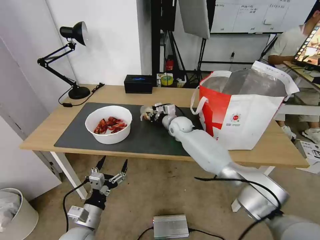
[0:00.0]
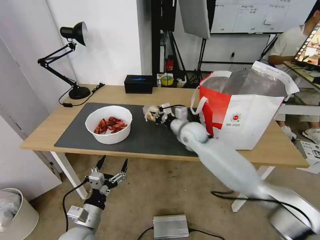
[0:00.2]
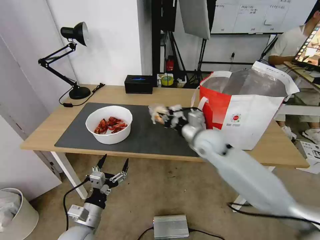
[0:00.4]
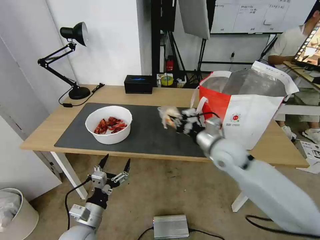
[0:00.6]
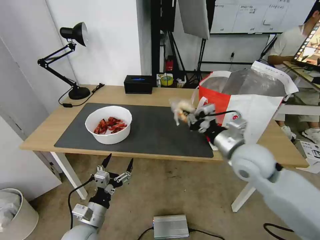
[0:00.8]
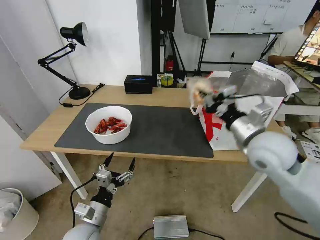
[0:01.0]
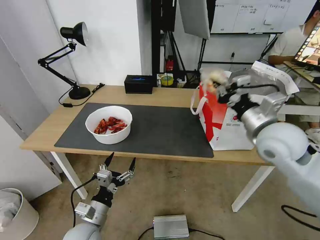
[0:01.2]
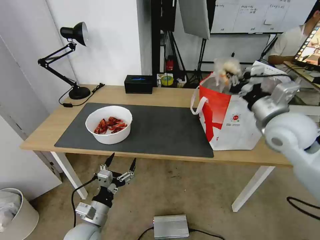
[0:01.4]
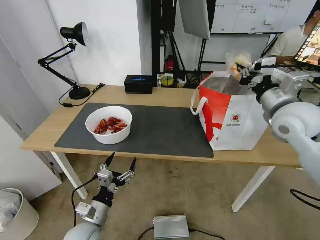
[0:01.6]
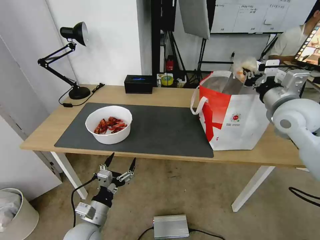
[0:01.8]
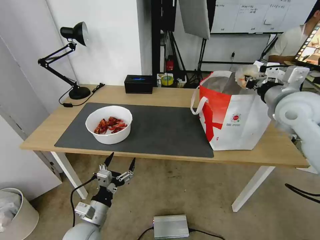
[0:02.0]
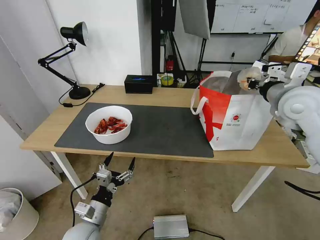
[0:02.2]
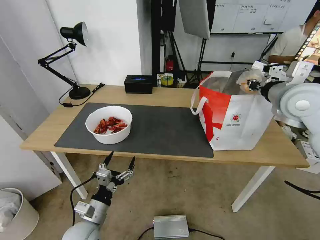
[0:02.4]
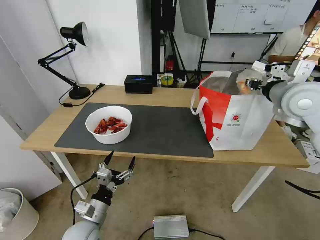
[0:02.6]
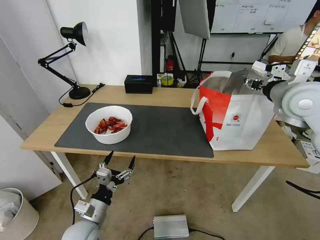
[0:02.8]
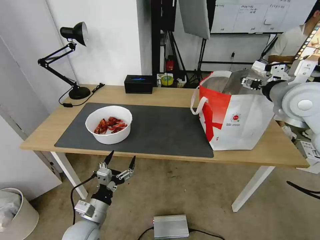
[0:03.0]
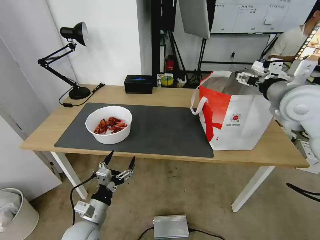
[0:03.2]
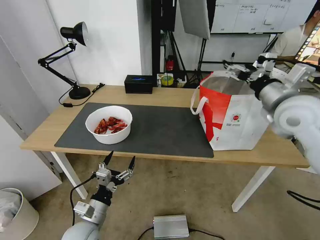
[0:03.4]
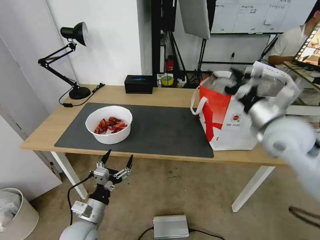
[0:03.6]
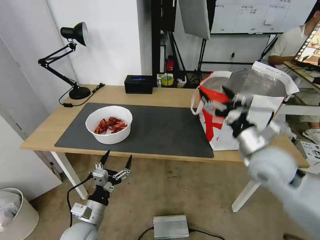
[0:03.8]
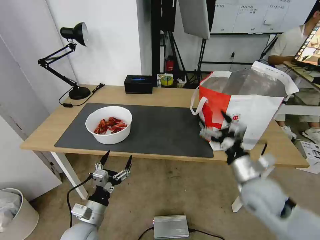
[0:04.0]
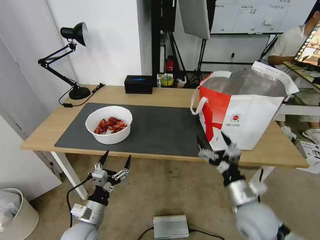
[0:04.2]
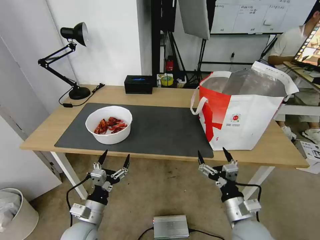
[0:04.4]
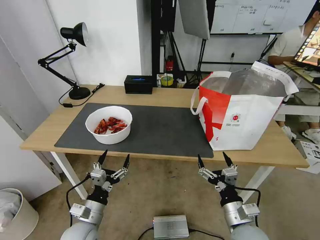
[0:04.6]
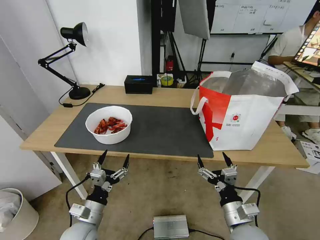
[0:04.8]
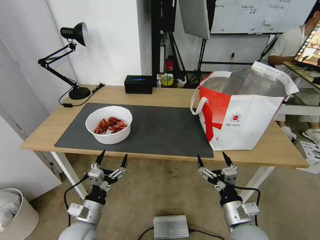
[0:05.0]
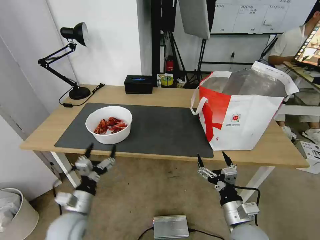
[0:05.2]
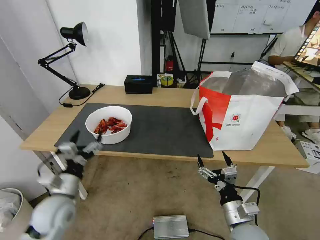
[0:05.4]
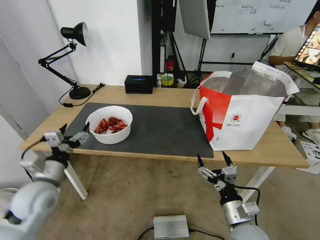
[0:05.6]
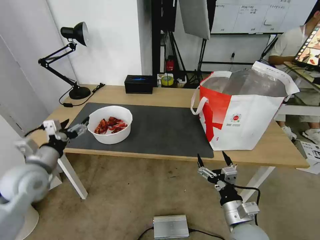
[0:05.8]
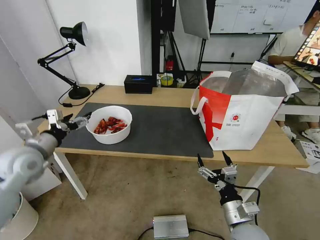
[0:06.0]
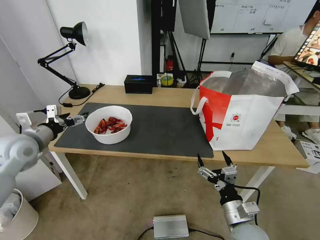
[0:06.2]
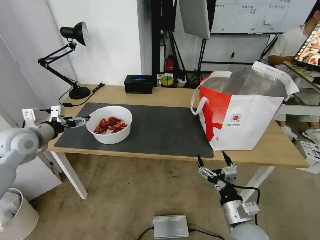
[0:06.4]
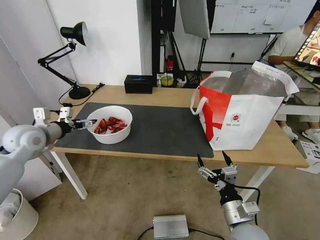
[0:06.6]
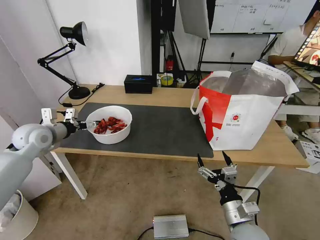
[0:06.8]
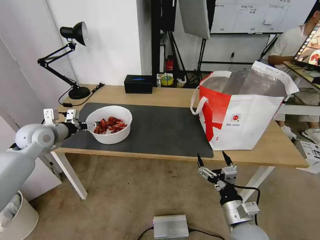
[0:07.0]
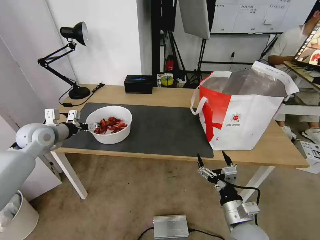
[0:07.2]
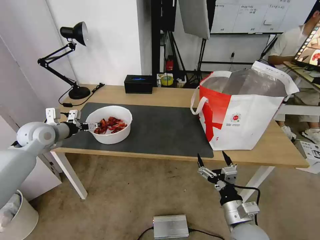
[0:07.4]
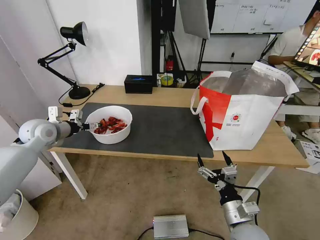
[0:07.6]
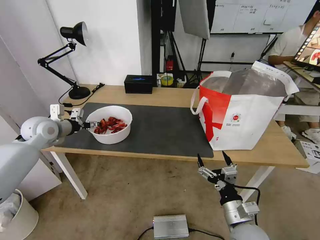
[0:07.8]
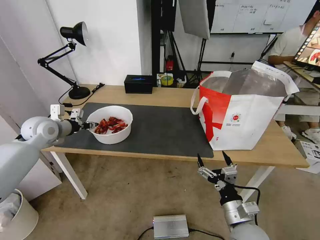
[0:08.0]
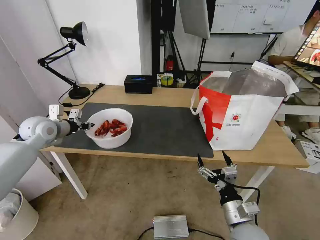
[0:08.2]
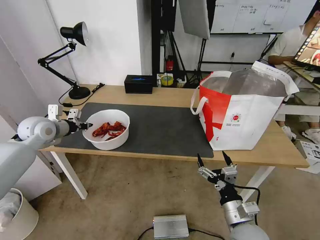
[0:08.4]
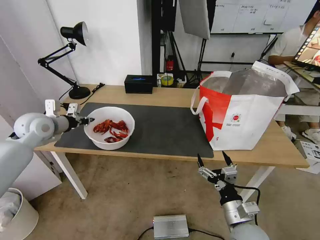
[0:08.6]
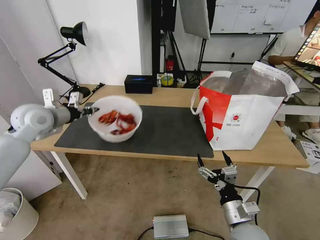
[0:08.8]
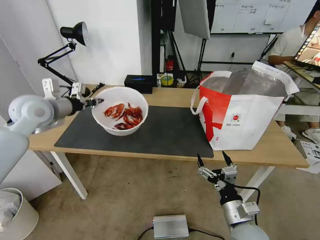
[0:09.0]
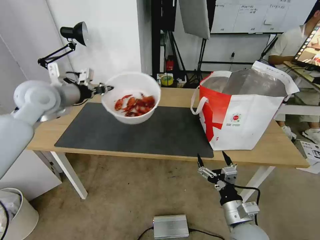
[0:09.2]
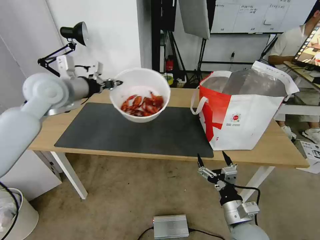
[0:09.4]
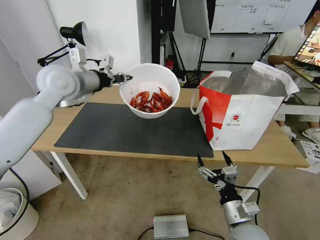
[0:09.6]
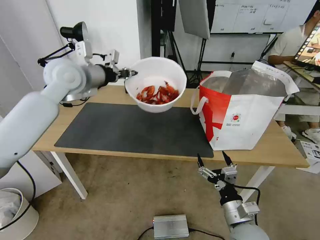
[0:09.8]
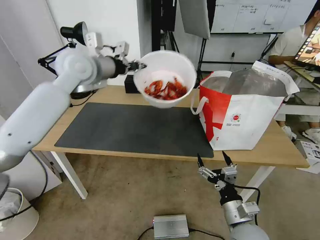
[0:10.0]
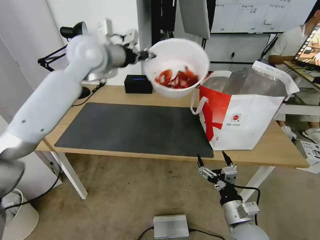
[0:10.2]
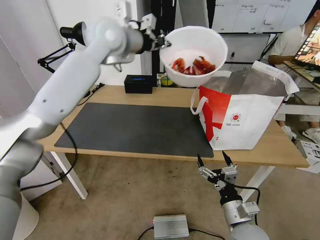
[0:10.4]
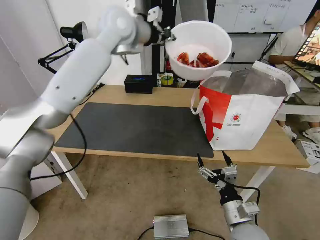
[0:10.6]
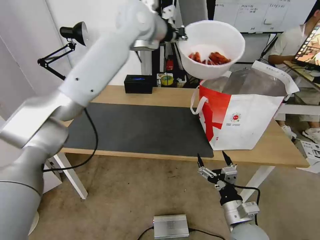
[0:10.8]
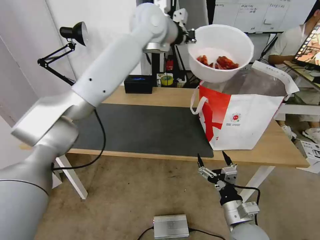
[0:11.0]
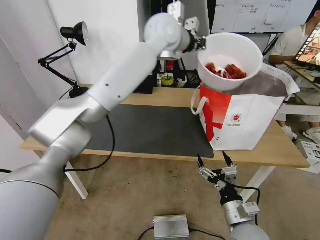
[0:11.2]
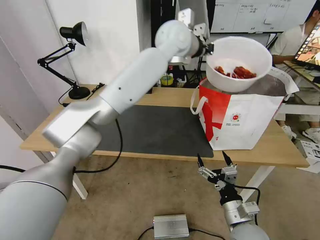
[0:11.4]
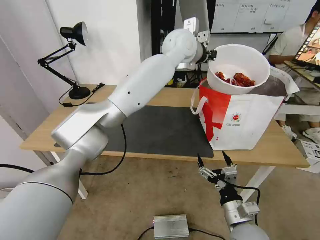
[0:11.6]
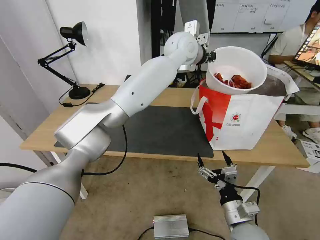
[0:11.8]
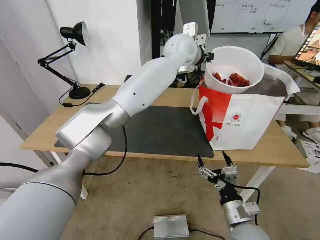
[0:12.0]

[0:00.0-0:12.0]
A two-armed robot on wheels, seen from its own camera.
Task of the whole recording: Pick up the trash from the table and place it into the takeout bag.
0:00.0 to 0:01.6: The right gripper heads to the right, upward and backward, covering approximately 35 cm.
0:01.6 to 0:03.0: The right gripper changes place by approximately 5 cm, and opens up.
0:03.0 to 0:04.4: The right gripper goes roughly 40 cm downward and backward.
0:04.4 to 0:06.0: The left gripper is displaced upward, to the left and forward by about 30 cm.
0:06.0 to 0:07.6: The left gripper travels forward by about 10 cm.
0:07.6 to 0:09.0: The left gripper moves upward, approximately 10 cm, and closes its fingers.
0:09.0 to 0:10.4: The left gripper goes about 30 cm to the right, upward and forward.
0:10.4 to 0:12.0: The left gripper heads to the right, covering some 20 cm.

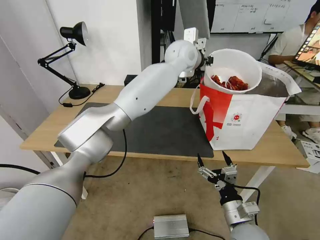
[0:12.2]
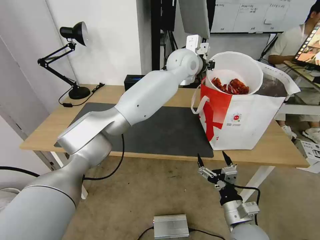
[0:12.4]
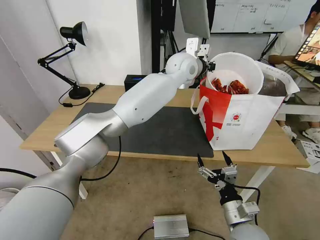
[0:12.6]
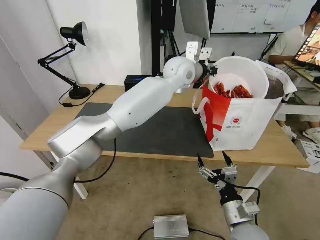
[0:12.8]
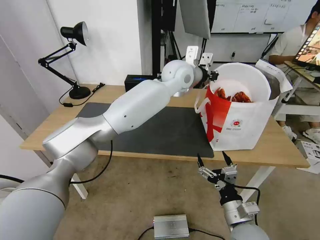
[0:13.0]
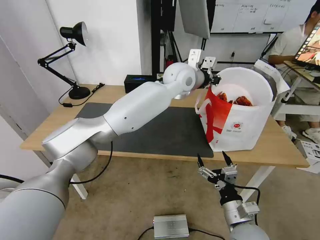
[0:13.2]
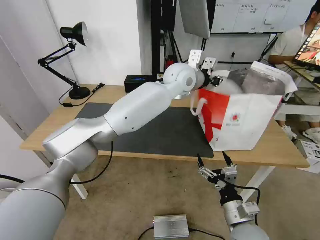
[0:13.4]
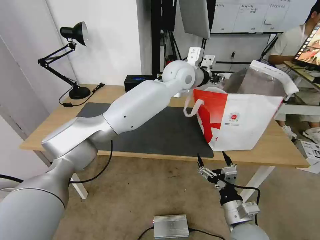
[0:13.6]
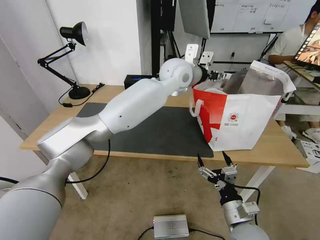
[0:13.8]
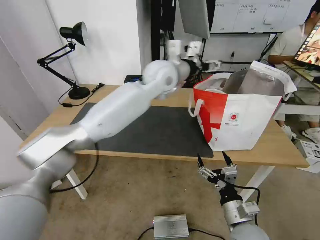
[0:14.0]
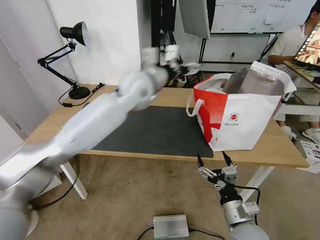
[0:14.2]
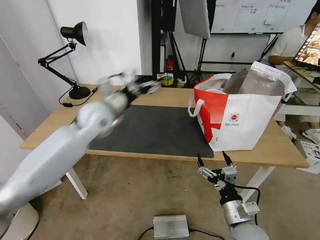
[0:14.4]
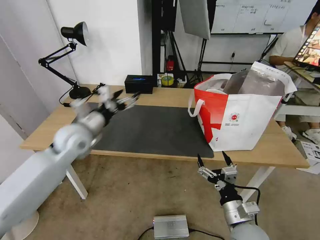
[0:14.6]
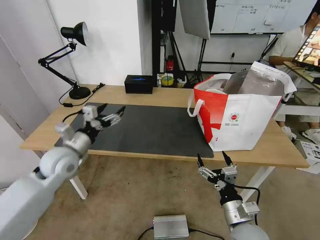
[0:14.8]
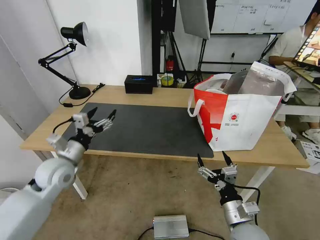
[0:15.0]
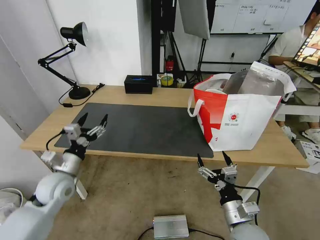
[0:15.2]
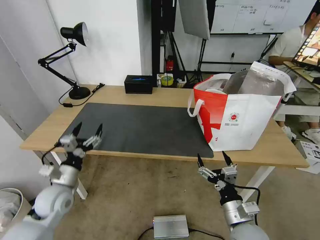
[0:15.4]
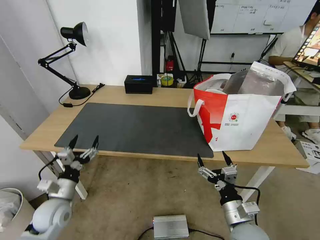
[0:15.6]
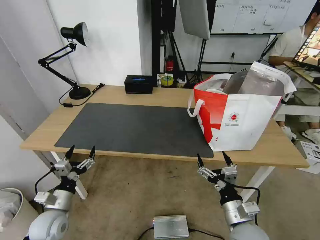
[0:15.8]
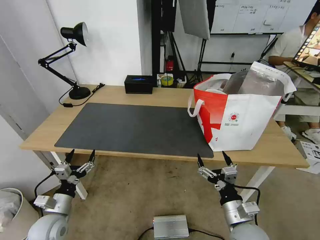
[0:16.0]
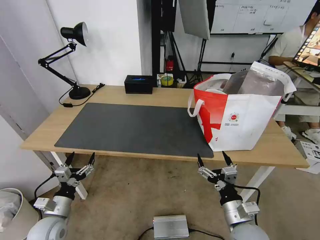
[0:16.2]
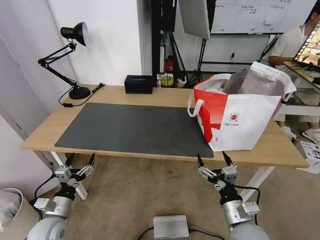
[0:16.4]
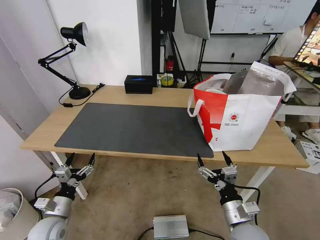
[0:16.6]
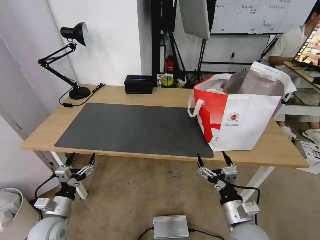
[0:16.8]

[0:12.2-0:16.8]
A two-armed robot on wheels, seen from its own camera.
Task of the whole recording: Pick up the trash from the table and place it into the takeout bag.
0:12.2 to 0:13.8: The left gripper ends up about 5 cm from where it was, and opens.
0:13.8 to 0:15.2: The left gripper goes some 50 cm to the left, downward and backward.
0:15.2 to 0:16.8: The left gripper travels downward and backward by roughly 15 cm.

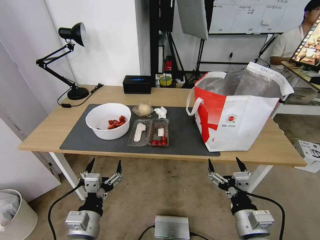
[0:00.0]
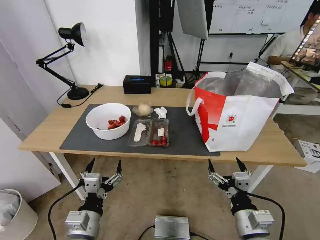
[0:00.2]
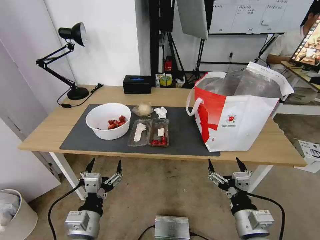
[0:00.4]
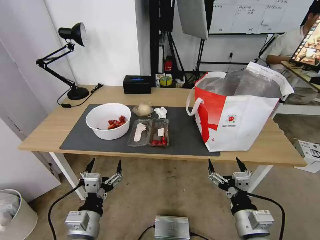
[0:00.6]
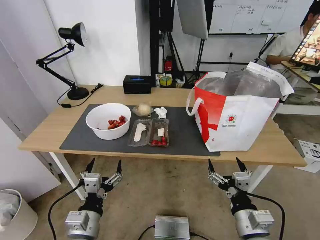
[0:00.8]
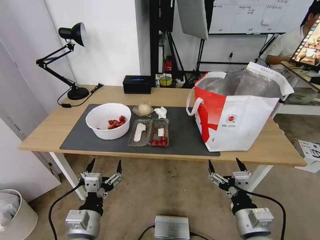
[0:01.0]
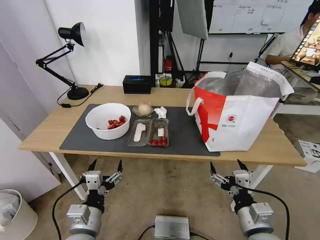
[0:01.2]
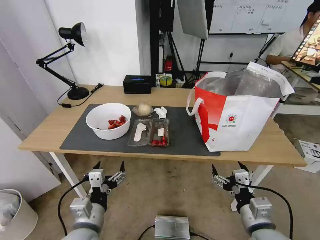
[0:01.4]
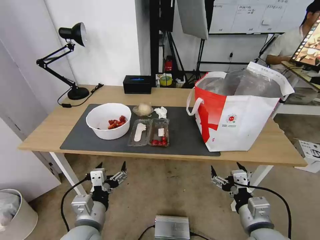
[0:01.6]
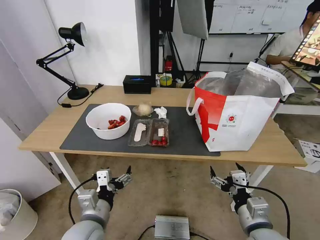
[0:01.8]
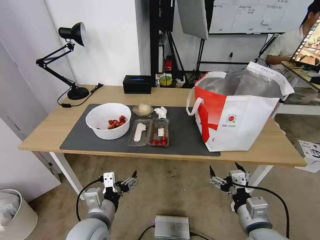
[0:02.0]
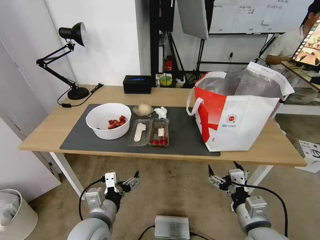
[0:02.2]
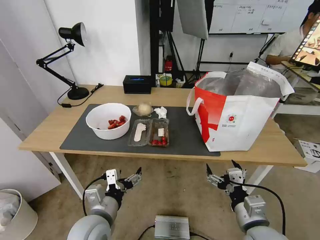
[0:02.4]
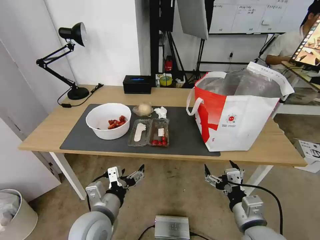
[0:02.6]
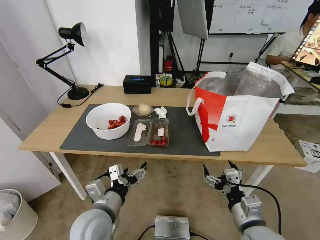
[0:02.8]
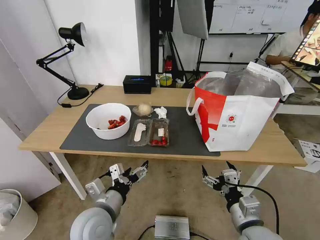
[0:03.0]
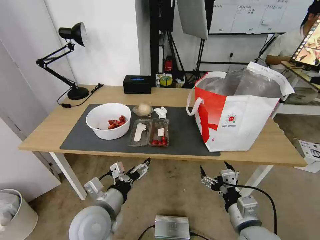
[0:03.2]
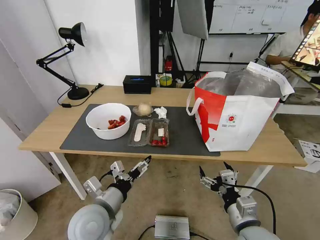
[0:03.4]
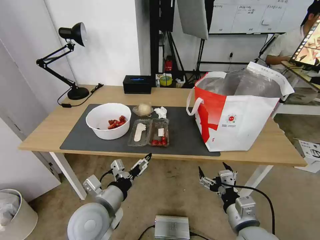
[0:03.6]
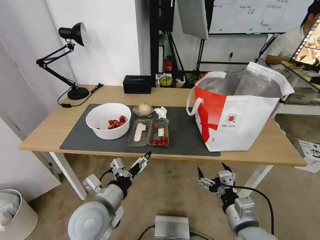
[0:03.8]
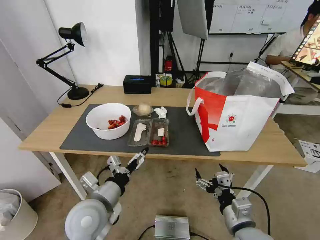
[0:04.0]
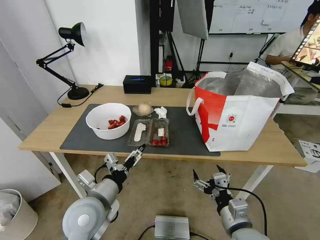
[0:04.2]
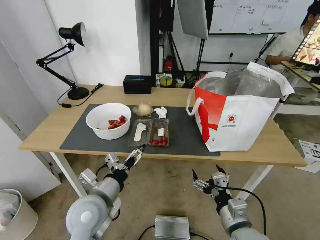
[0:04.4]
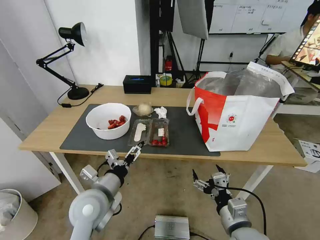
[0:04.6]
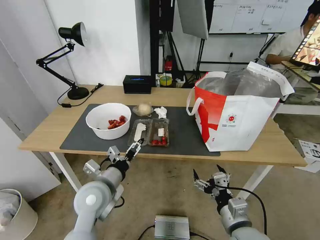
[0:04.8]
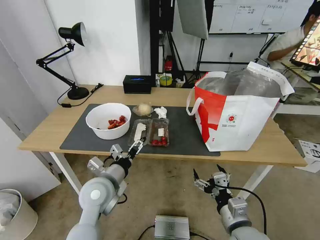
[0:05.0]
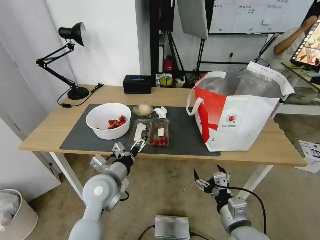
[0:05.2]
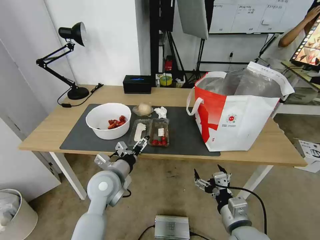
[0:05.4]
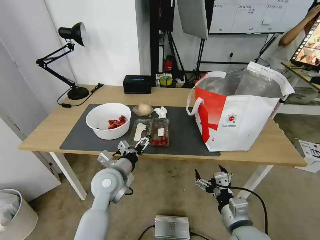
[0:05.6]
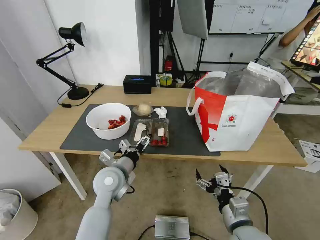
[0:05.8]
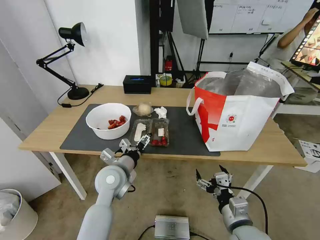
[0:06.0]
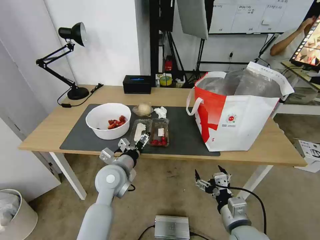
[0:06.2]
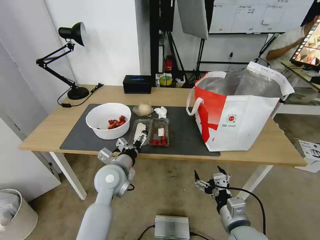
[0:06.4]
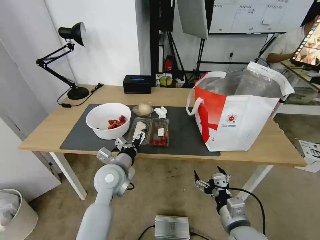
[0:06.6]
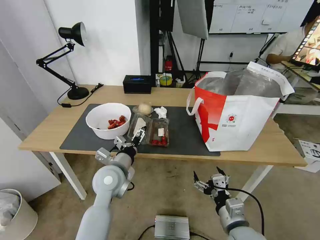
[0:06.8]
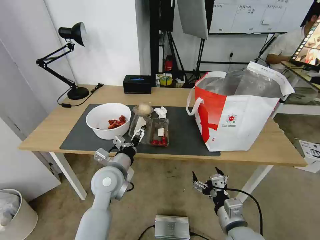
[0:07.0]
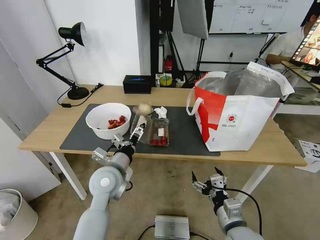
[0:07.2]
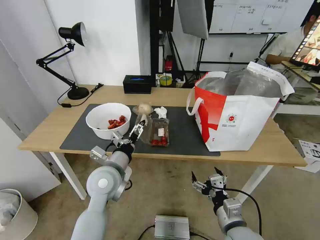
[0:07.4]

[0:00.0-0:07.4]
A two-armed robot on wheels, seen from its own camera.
Task of the whole recording: Pick up the trash from the table and place it into the takeout bag.
0:01.4 to 0:03.0: The left gripper moves about 5 cm.
0:04.4 to 0:06.0: The left gripper heads forward, covering approximately 10 cm.
0:06.0 to 0:07.4: The grippers make only small movements.
